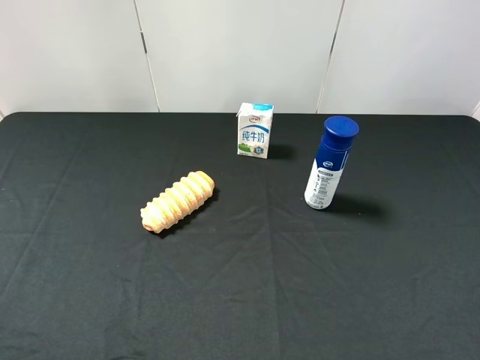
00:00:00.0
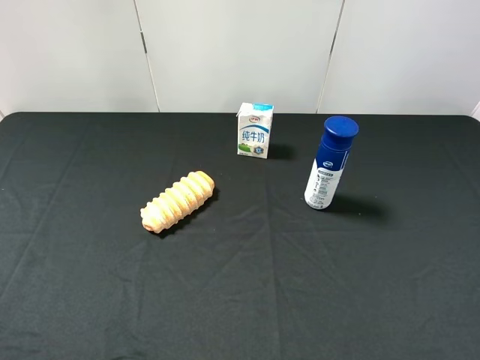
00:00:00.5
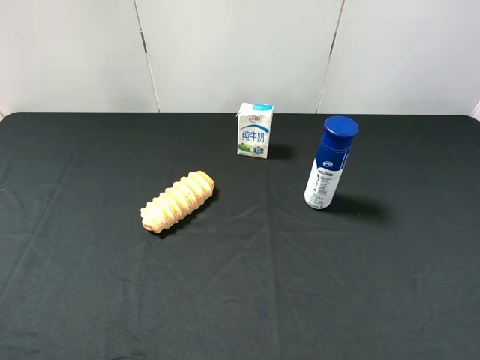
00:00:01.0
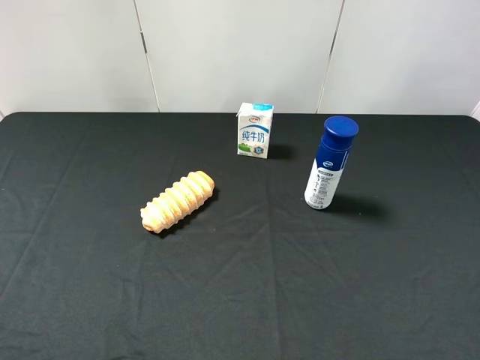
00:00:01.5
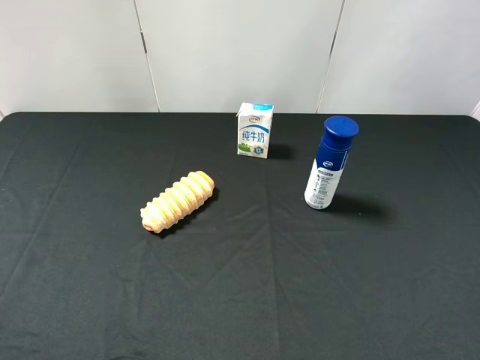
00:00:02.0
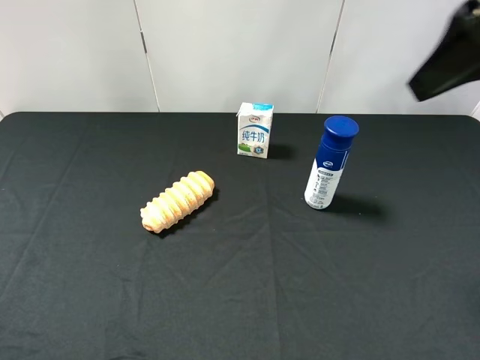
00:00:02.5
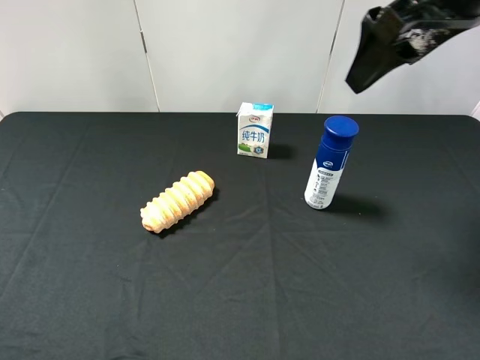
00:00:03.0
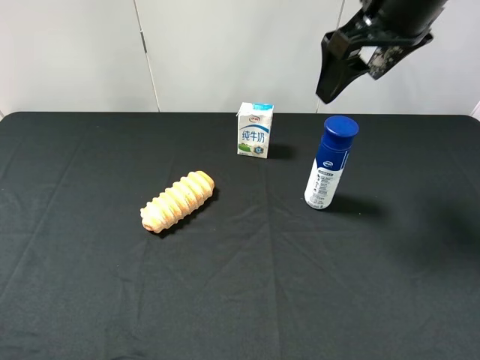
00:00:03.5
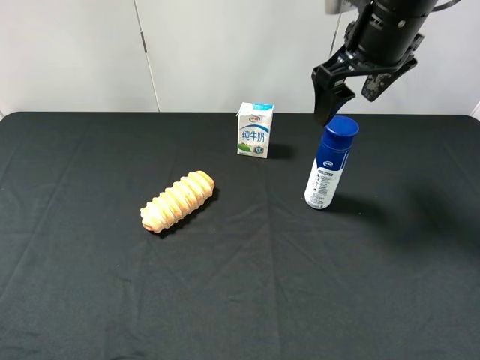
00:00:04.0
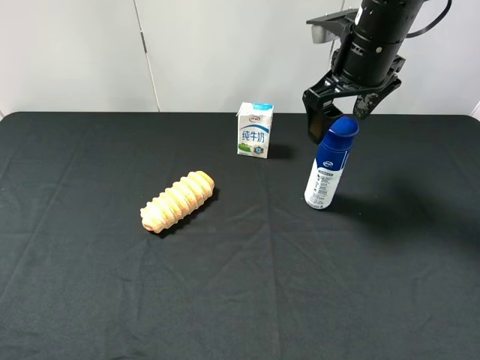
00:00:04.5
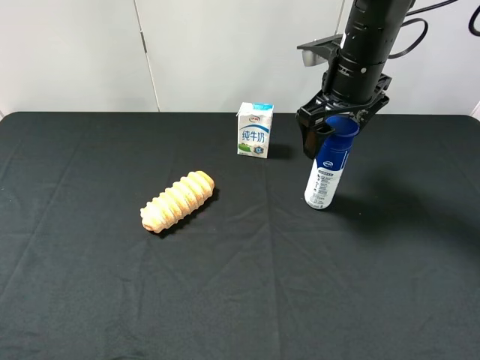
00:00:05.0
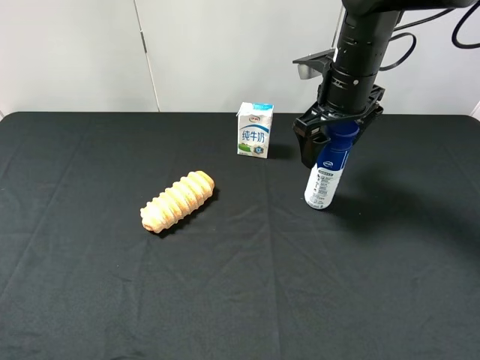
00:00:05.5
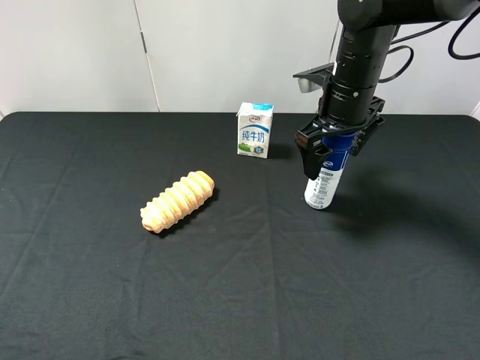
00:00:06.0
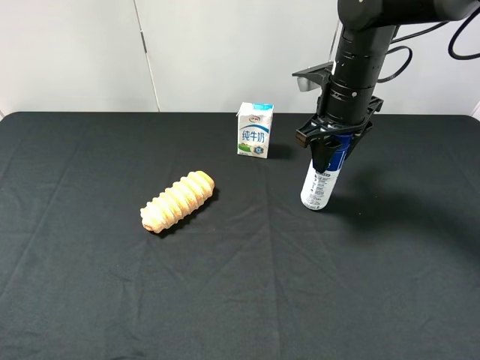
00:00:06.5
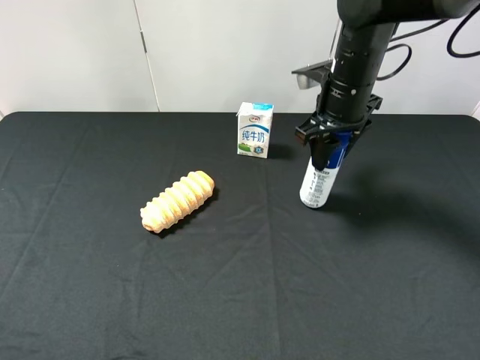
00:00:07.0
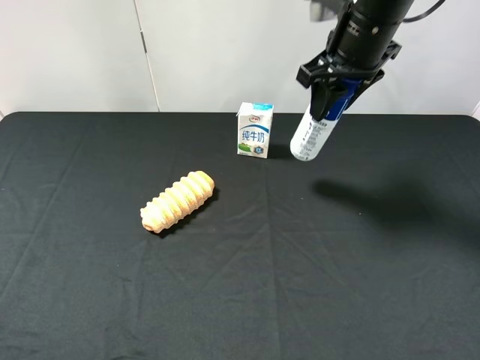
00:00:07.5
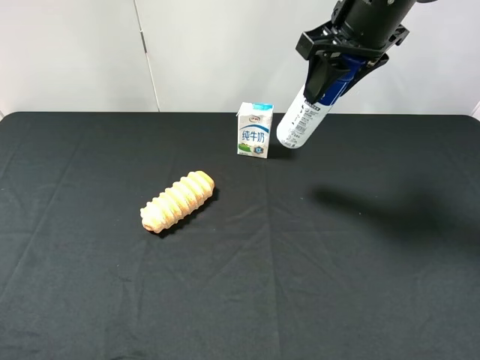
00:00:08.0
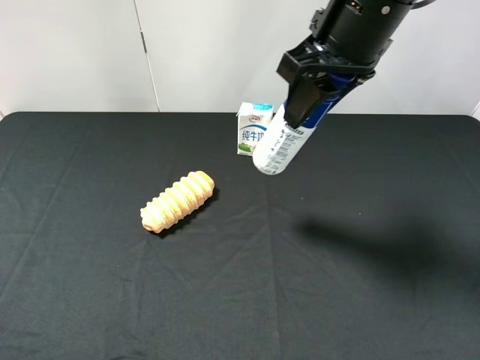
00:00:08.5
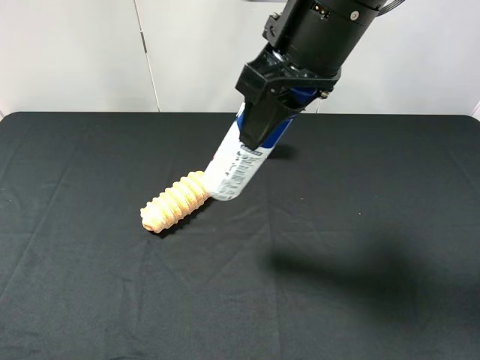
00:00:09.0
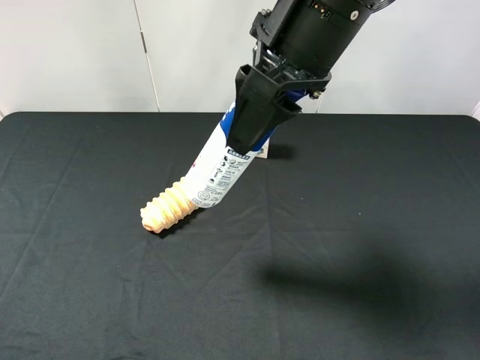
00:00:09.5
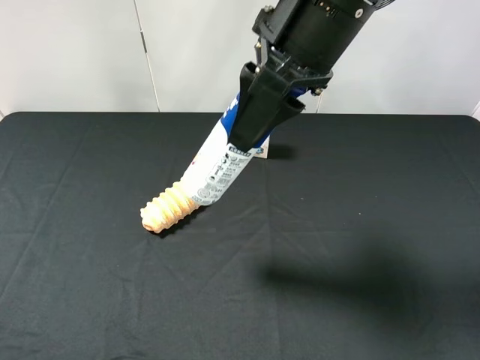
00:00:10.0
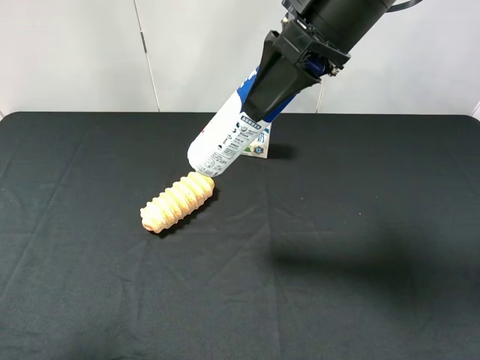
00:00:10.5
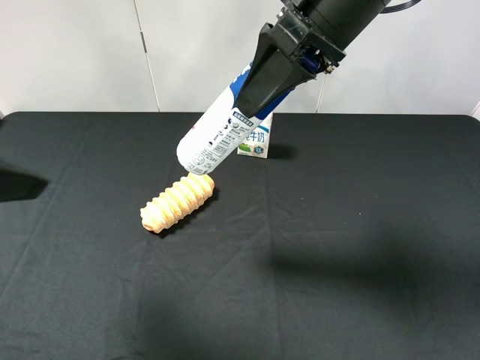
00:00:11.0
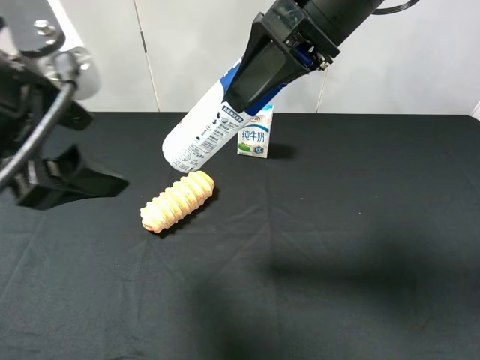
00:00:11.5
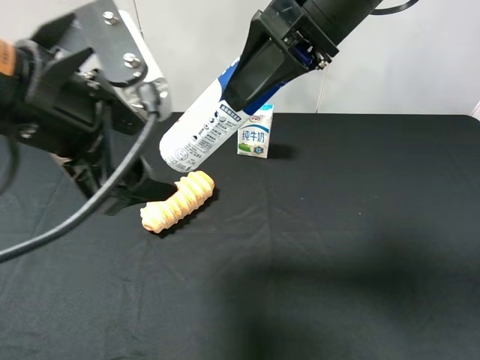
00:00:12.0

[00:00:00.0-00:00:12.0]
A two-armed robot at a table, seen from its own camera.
Task of the whole recording: use the right gripper to pick up the item and transfer it from the right gripper to the left gripper.
Step, 00:00:00.0 to 00:00:06.5: Use the right gripper to grab the yogurt on the right side of the table.
00:00:02.0 to 00:00:04.0: The right gripper moves forward and to the left, some 25 cm.
00:00:04.0 to 00:00:06.0: The right gripper goes about 10 cm downward.
00:00:06.0 to 00:00:08.0: The right gripper moves upward, roughly 10 cm, and closes its fingers.
00:00:08.0 to 00:00:10.0: The right gripper shifts roughly 10 cm backward and to the left.
00:00:10.0 to 00:00:12.0: The left gripper is displaced to the right and forward by roughly 25 cm.

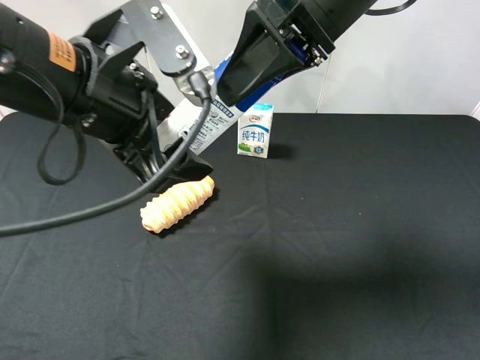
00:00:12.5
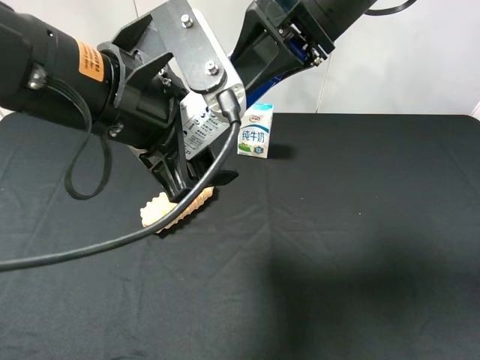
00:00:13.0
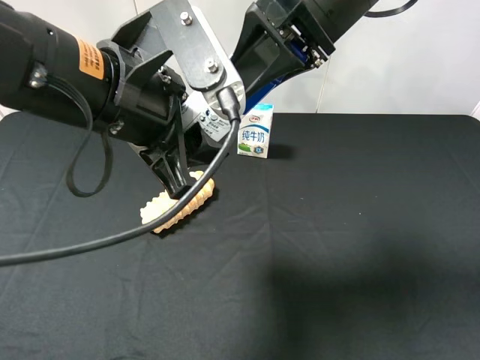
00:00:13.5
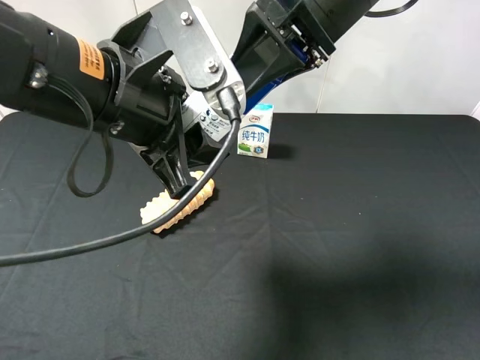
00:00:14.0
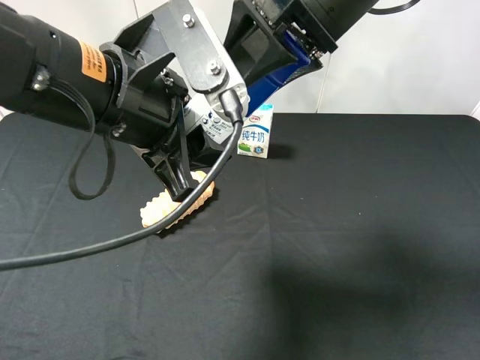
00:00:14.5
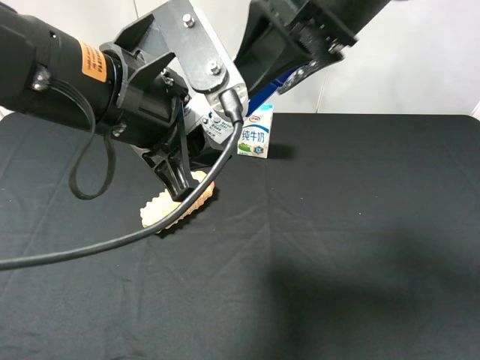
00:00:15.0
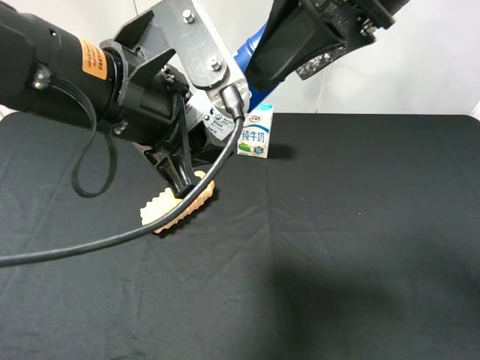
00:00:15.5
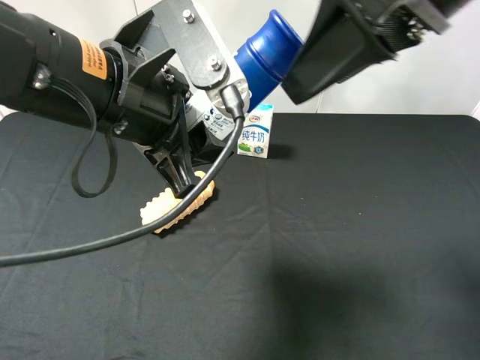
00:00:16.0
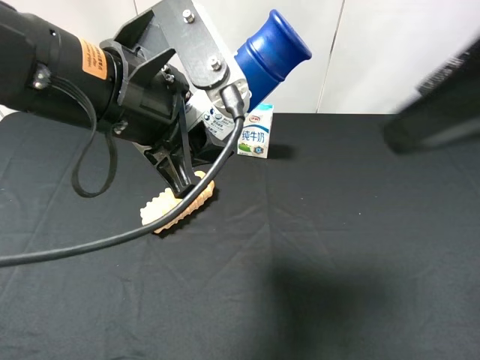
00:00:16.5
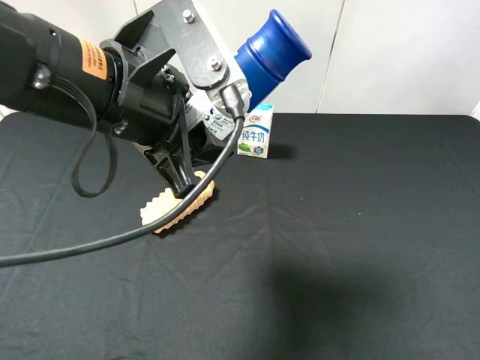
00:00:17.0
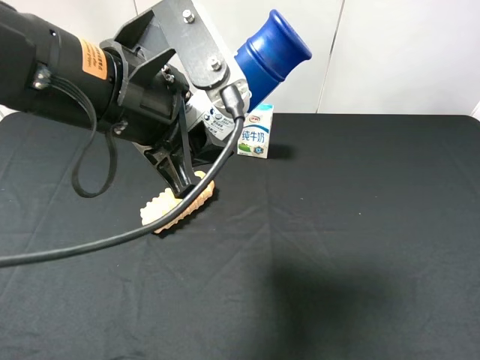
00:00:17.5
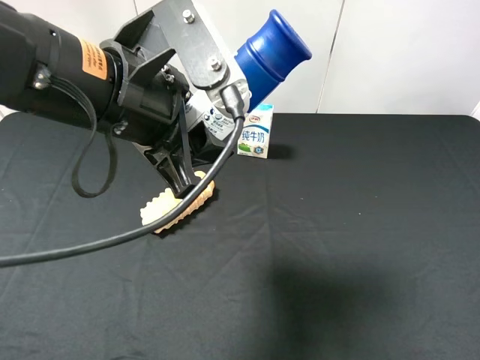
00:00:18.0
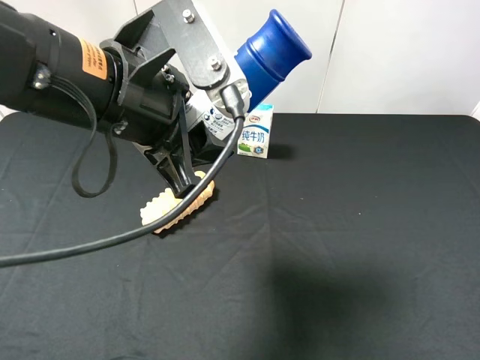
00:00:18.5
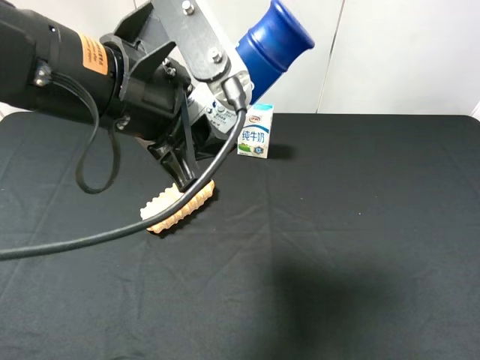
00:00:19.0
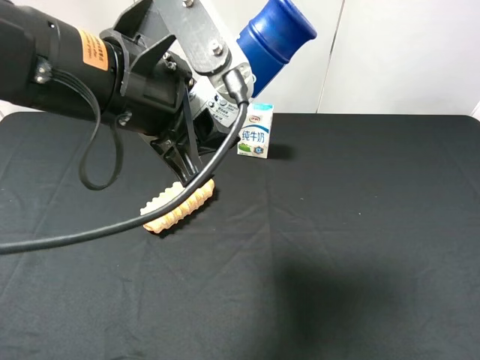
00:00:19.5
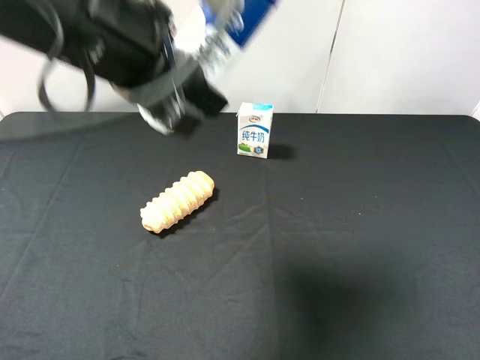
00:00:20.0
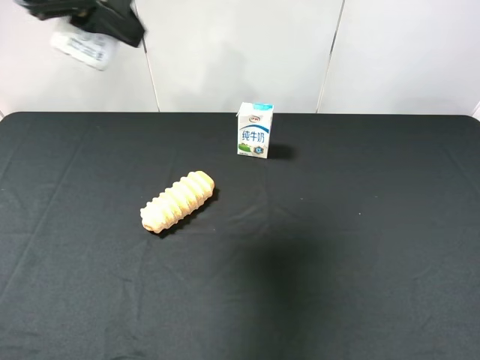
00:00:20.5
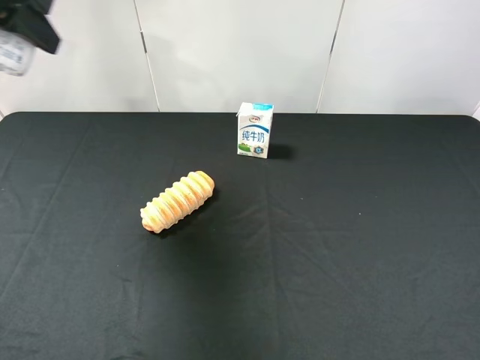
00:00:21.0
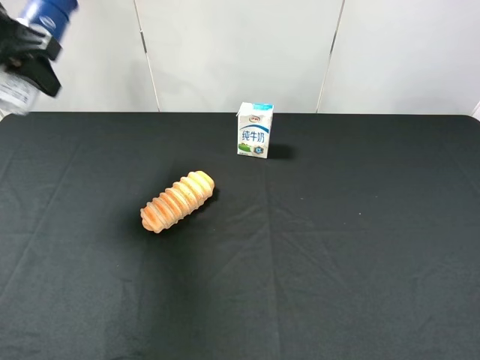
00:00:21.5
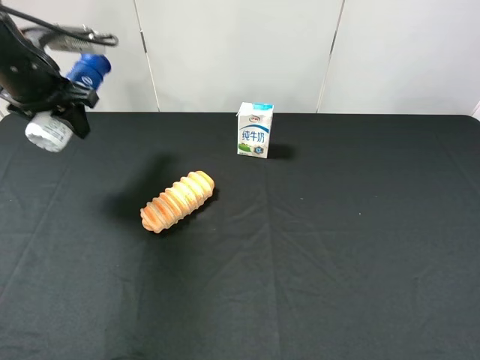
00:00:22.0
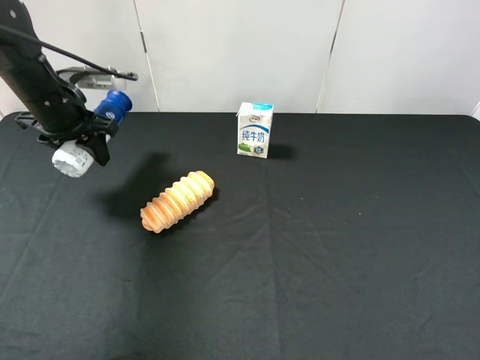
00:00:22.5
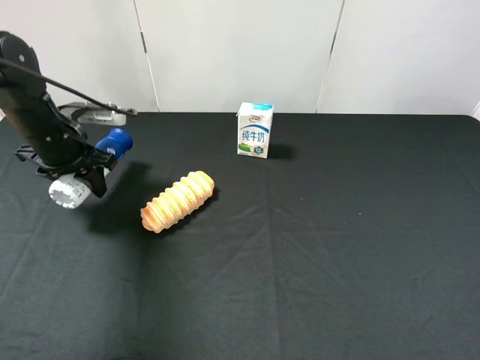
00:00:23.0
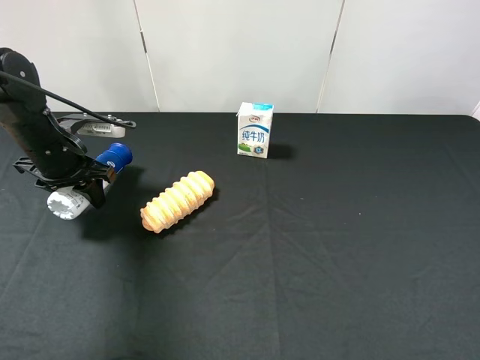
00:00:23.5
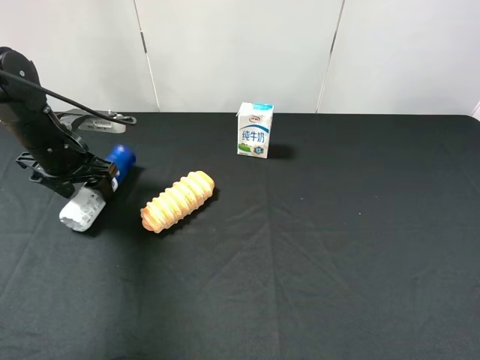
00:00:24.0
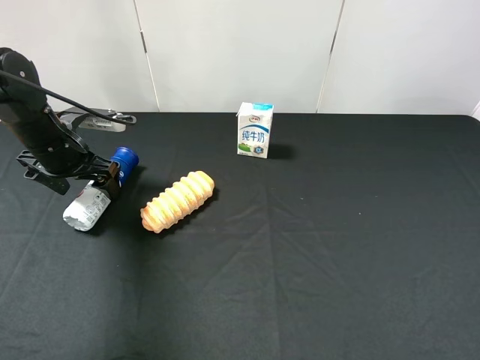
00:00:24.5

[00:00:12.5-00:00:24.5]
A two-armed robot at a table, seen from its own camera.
Task of the whole recording: use the right gripper to pick up the item and transfer it from the right gripper to the left gripper.
Step, 00:00:14.5 to 00:00:24.0: The left gripper places yogurt on the left side of the table.
00:00:12.5 to 00:00:14.5: The left gripper closes its fingers, while the right gripper opens its fingers.
00:00:14.5 to 00:00:16.5: The right gripper travels backward and to the right by some 15 cm.
00:00:16.5 to 00:00:18.5: The right gripper travels backward, downward and to the right by approximately 20 cm.
00:00:18.5 to 00:00:20.5: The left gripper moves upward, to the left and forward, roughly 15 cm.
00:00:20.5 to 00:00:22.5: The left gripper shifts about 25 cm downward, forward and to the left.
00:00:22.5 to 00:00:24.5: The left gripper changes place by roughly 5 cm, and opens up.

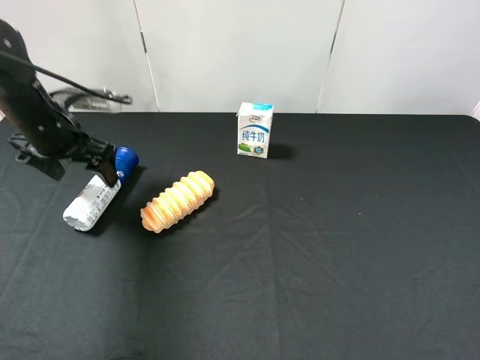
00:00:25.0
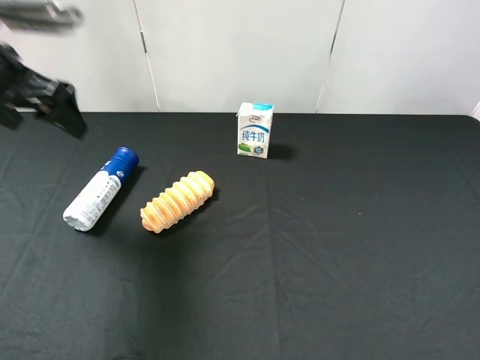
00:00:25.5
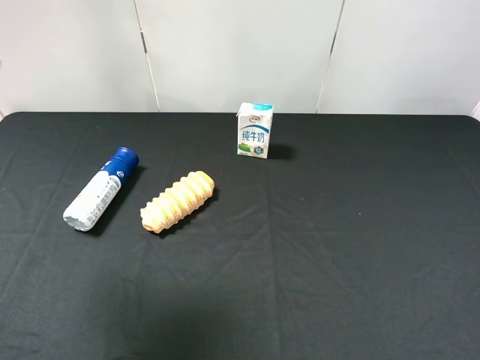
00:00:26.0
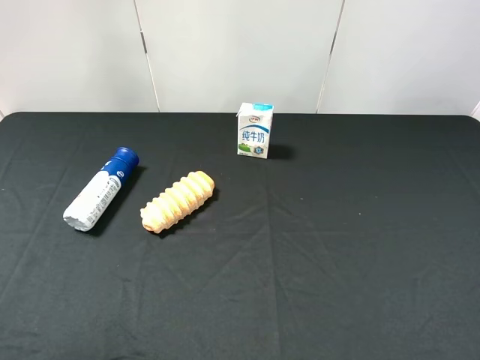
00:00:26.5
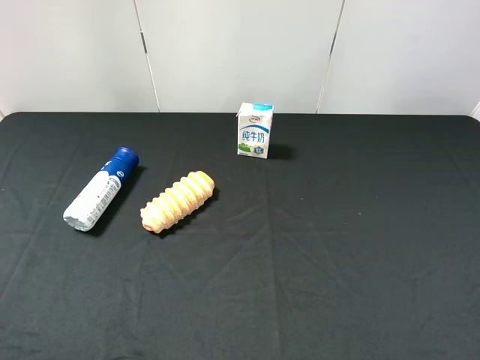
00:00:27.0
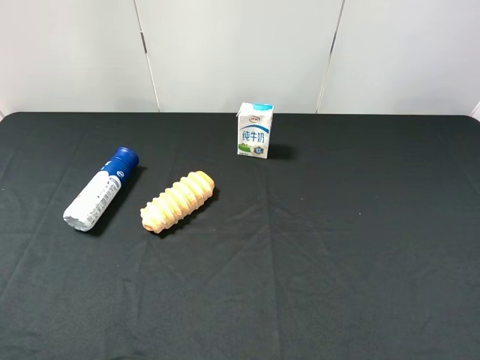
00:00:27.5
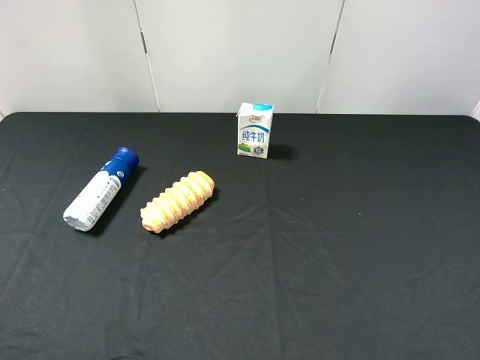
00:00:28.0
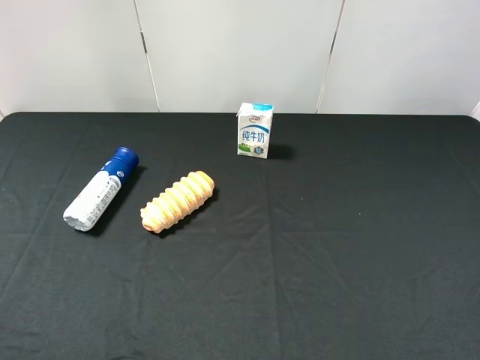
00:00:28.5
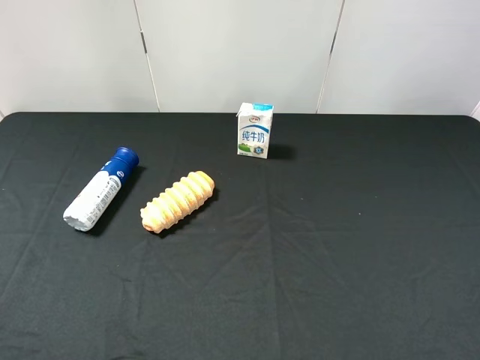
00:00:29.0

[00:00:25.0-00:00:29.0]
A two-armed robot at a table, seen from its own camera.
Task of the whole recording: use the right gripper to pick up the item and transfer it from the right gripper to the left gripper.
00:00:25.0 to 00:00:27.0: The left gripper shifts roughly 35 cm backward.
